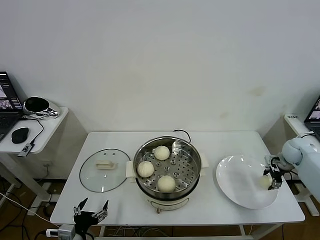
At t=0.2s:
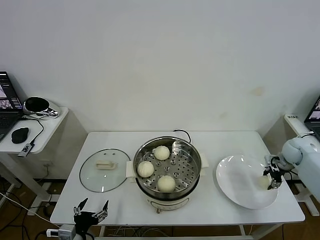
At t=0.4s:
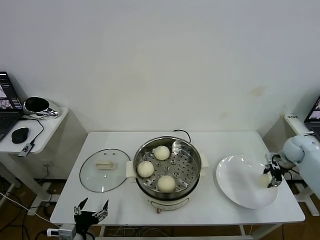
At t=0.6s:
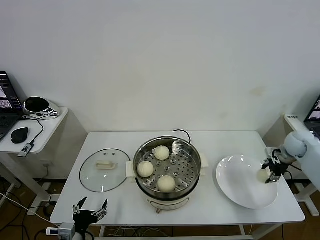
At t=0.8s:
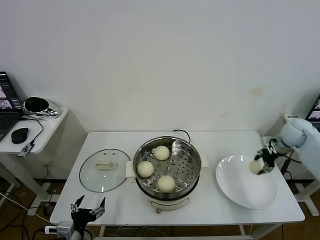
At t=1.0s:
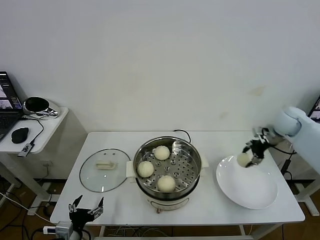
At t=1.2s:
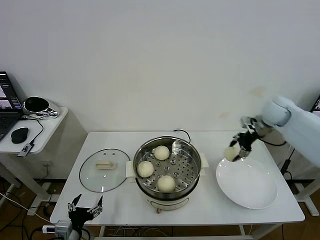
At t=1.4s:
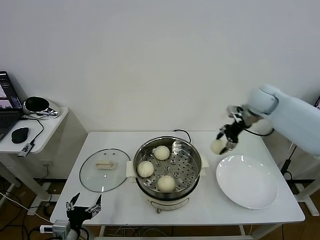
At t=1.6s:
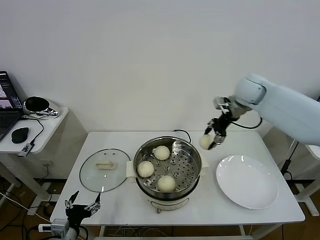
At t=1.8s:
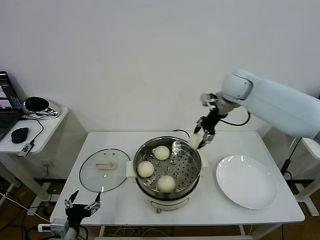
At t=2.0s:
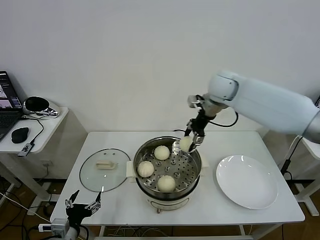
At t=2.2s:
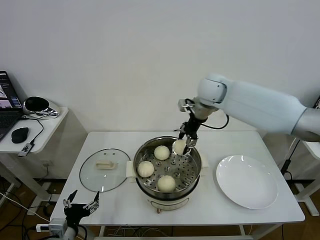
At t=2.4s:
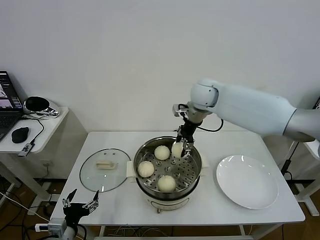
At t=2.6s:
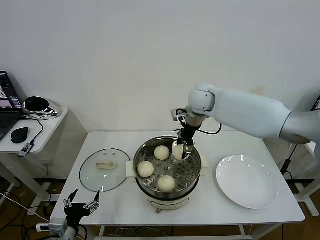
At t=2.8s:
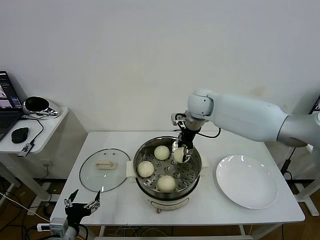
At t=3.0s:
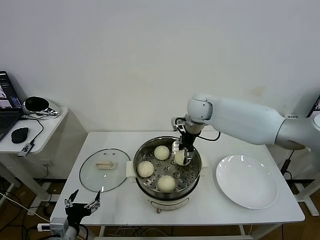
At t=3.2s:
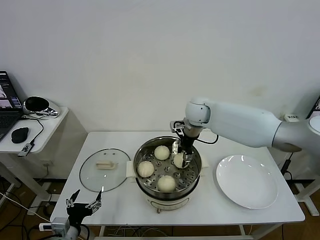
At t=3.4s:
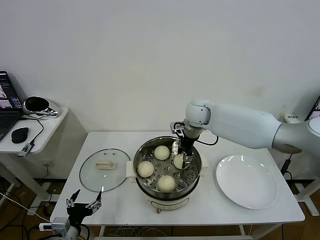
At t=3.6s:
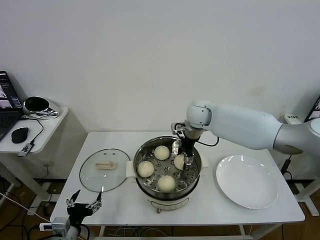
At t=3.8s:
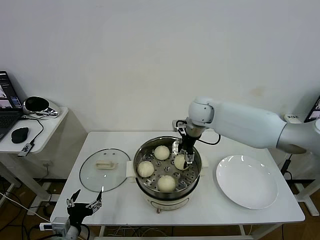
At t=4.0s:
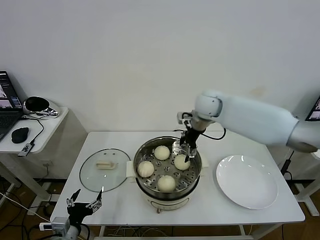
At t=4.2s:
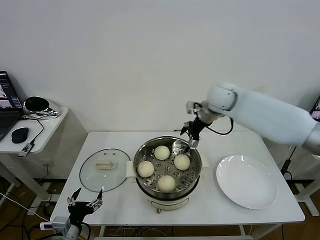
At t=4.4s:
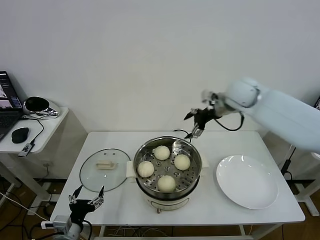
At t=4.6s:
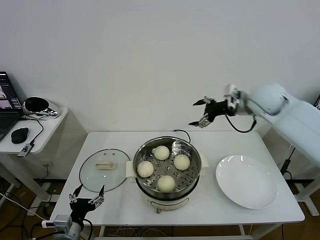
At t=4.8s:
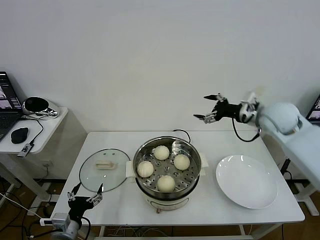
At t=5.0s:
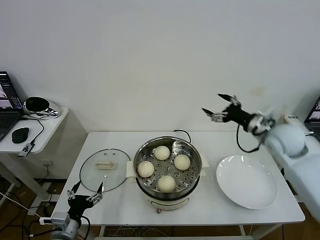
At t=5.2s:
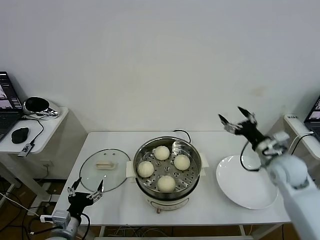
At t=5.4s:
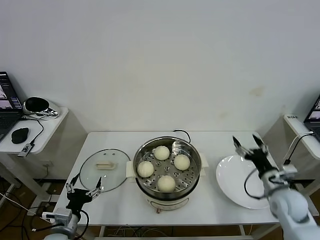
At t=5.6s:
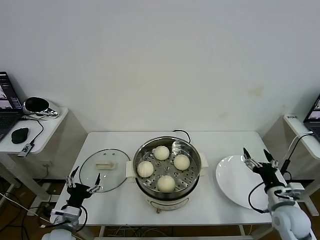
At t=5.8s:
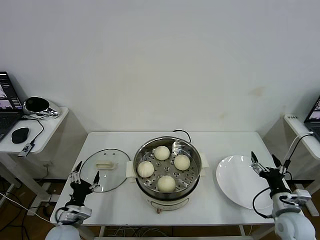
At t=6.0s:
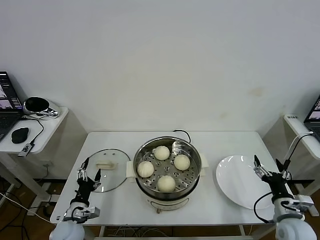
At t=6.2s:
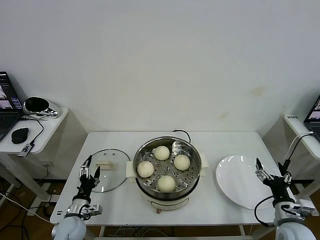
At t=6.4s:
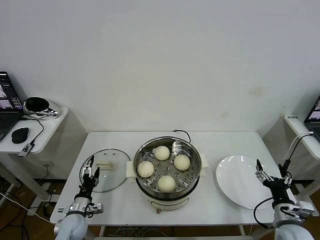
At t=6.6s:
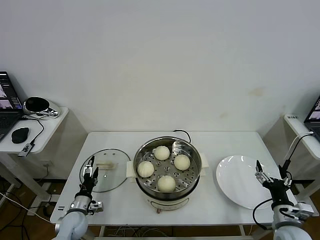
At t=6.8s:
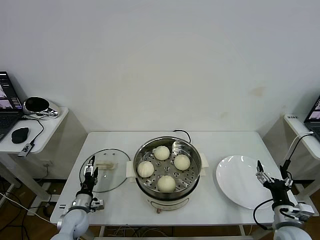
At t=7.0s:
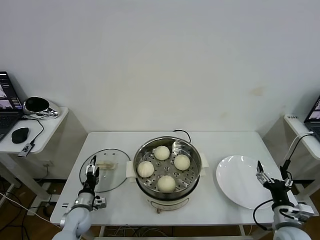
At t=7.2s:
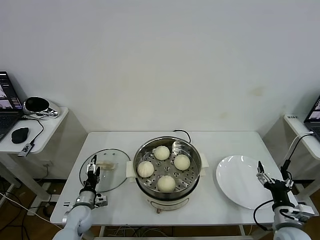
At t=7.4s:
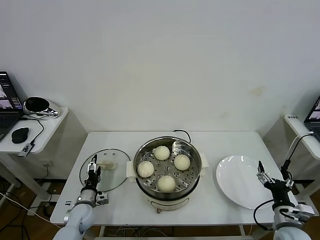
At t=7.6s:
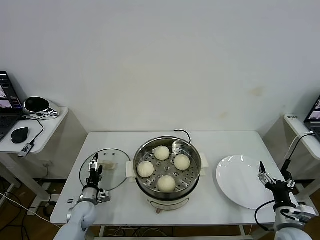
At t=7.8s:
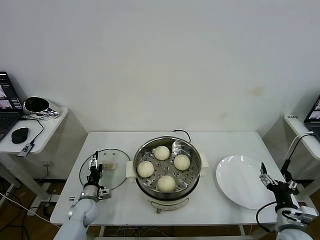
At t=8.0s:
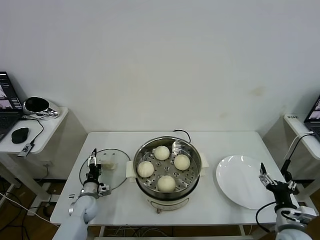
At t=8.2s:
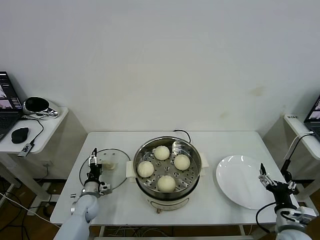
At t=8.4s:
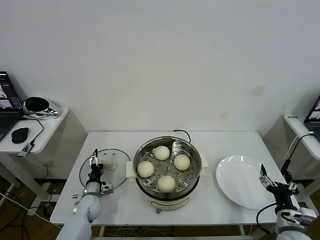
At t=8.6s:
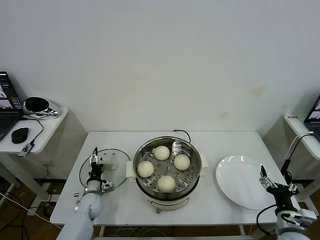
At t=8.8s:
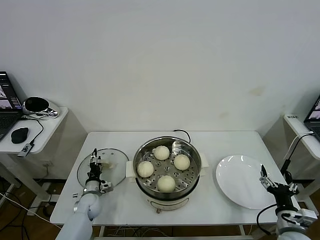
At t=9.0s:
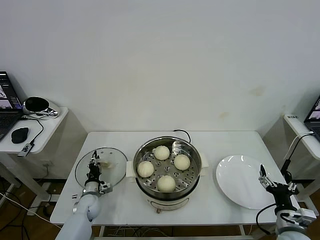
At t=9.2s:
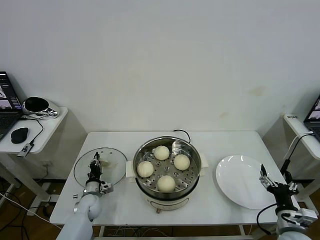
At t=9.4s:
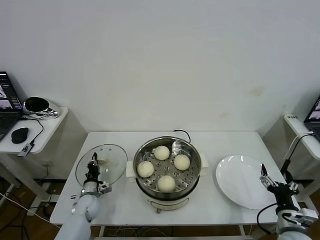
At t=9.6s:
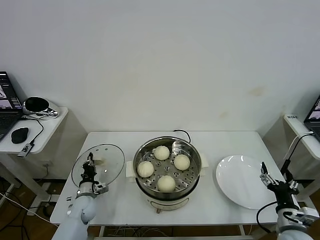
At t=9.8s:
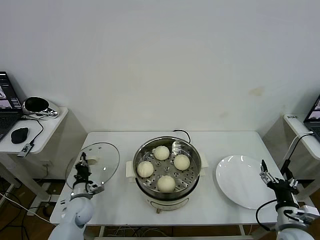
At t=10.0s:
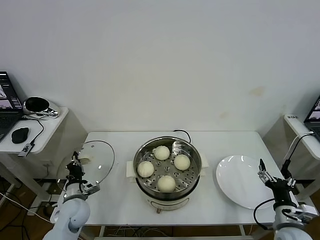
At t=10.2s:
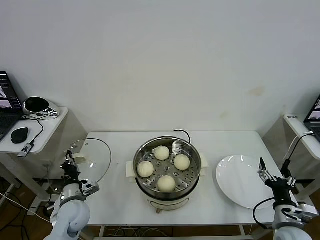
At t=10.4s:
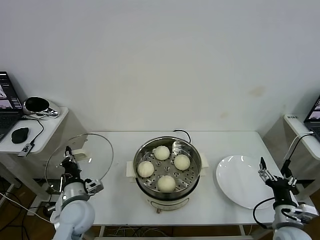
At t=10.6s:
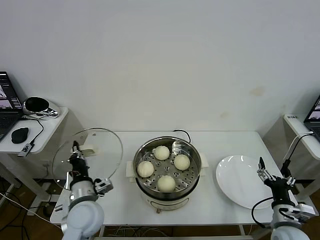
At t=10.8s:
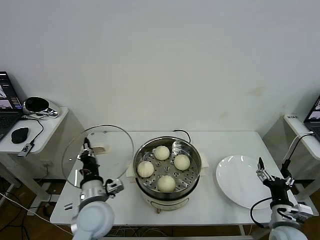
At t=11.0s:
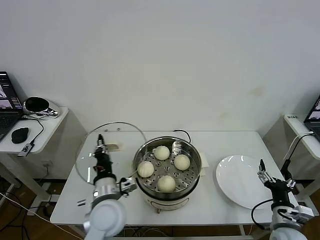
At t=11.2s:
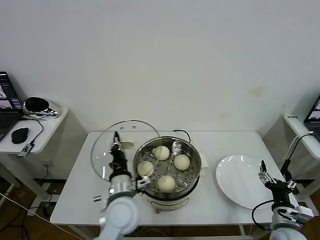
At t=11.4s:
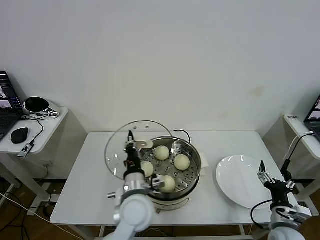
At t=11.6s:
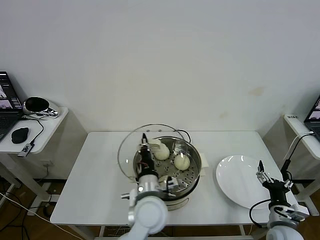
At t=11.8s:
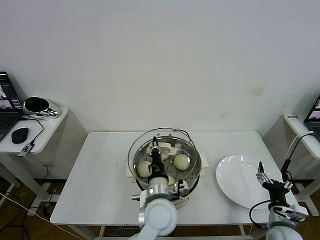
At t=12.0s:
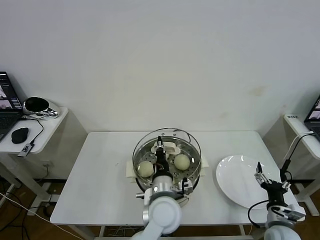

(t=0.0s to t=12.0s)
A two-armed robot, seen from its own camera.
Task of the whole recording: take steamed baozi put them in steamer then cover it.
Step, t=0.2s - t=4.0s: Place the baozi on the steamer with right gripper.
Step, t=4.2s - t=9.4s: Grasp the pot lid with left gripper.
t=0.0s - t=1.6s: The right gripper heads to the left and upward, covering roughly 30 cm.
t=1.6s - t=3.0s: The right gripper shifts roughly 15 cm to the left and downward.
t=3.0s - t=4.4s: The right gripper is displaced to the right and upward by roughly 15 cm, and opens up.
t=4.4s - t=6.0s: The right gripper heads backward, downward and to the right, covering some 40 cm, while the left gripper goes some 10 cm forward and downward.
t=6.0s - t=7.6s: The left gripper is displaced forward and downward by approximately 10 cm.
t=7.6s - t=9.0s: The left gripper closes up.
t=9.0s - t=10.4s: The left gripper heads upward and backward, covering about 20 cm, and closes.
t=10.4s - t=12.0s: The left gripper travels to the right by roughly 25 cm.

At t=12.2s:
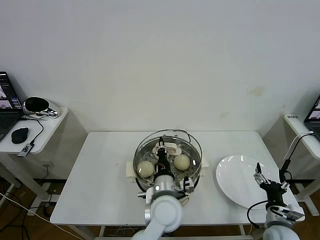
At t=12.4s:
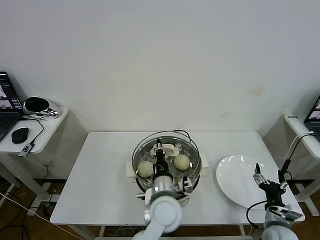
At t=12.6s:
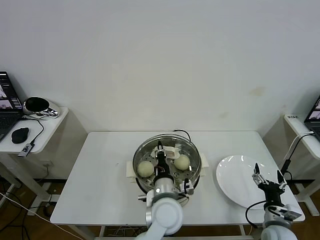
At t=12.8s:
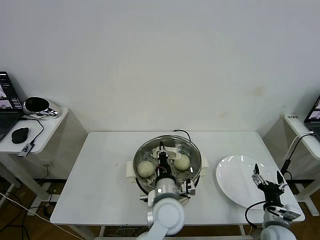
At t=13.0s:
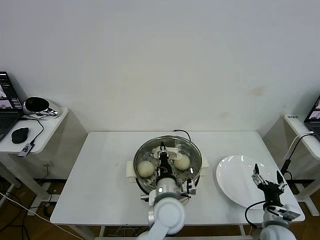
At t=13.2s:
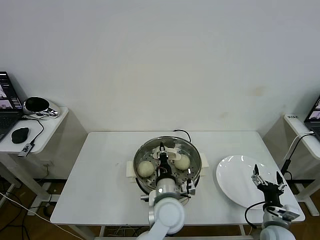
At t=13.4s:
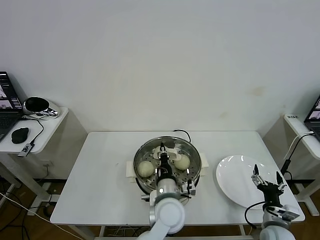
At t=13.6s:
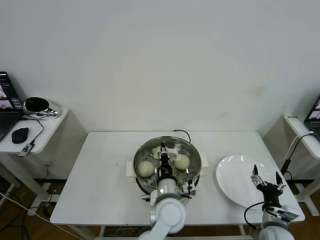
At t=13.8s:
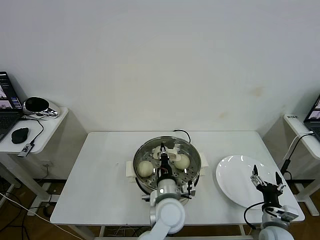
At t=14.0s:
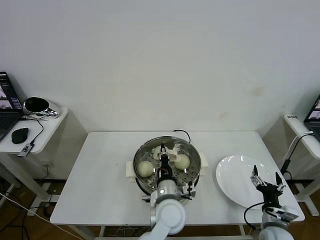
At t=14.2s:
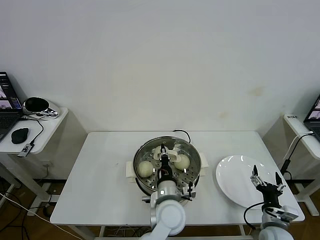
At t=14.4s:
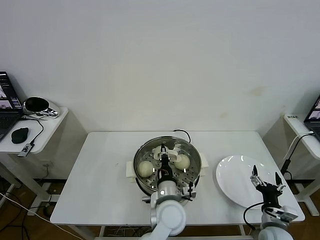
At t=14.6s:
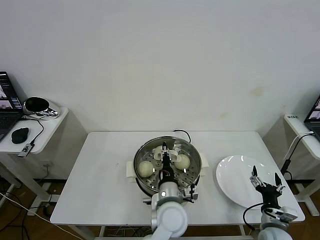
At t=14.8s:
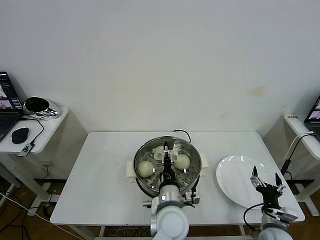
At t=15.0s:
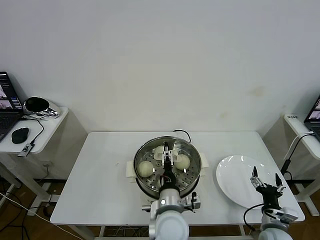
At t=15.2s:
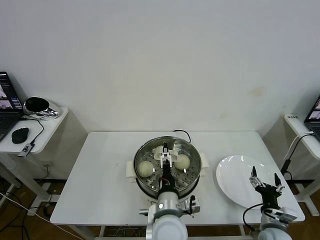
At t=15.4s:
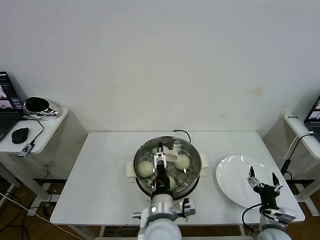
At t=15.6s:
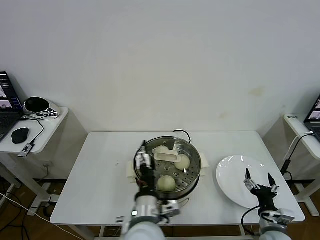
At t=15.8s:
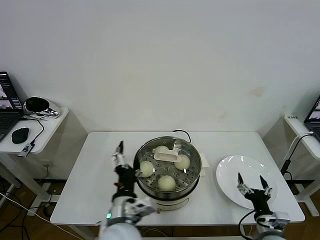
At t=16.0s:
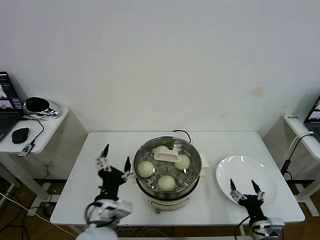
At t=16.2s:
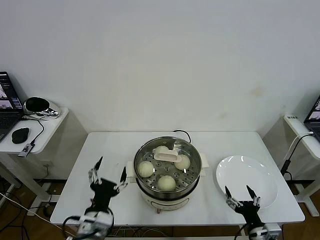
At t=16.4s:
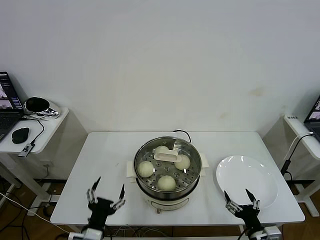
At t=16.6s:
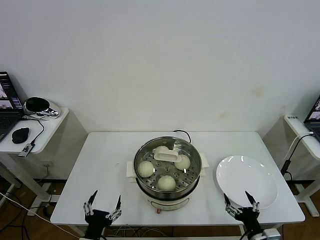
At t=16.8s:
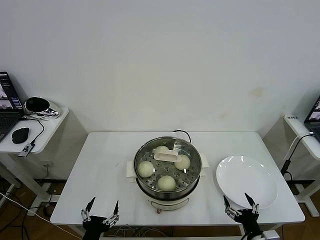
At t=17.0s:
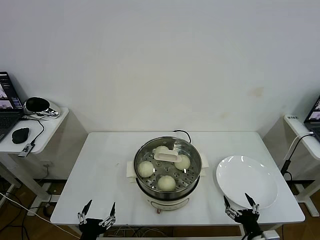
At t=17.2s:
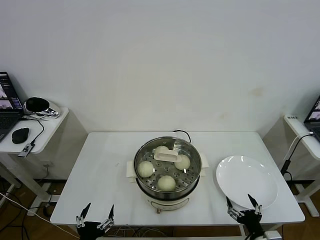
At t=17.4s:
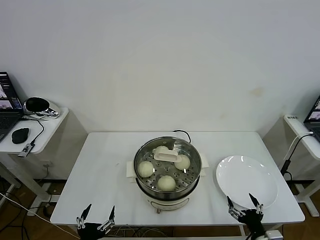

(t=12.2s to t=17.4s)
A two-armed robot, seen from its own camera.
Task of the whole recording: take steamed baozi put them in steamer then cover it.
Step, t=12.2s - t=15.4s: Place the pot lid on the steamer with left gripper.
t=12.2s - t=14.0s: The grippers move only a little.
t=14.0s - t=15.6s: The left gripper goes about 10 cm backward and upward, and opens up.
t=15.6s - t=17.4s: The right gripper travels backward by roughly 5 cm. Meanwhile the left gripper travels to the left, backward and downward by some 25 cm.
